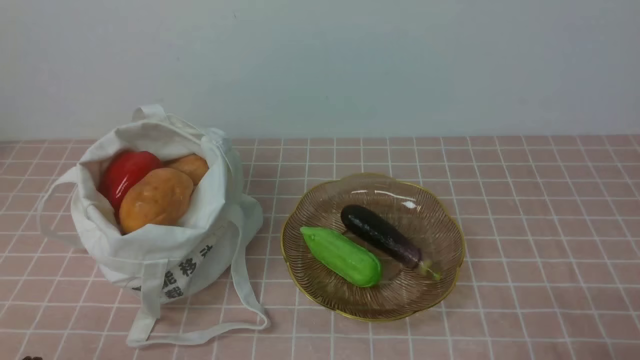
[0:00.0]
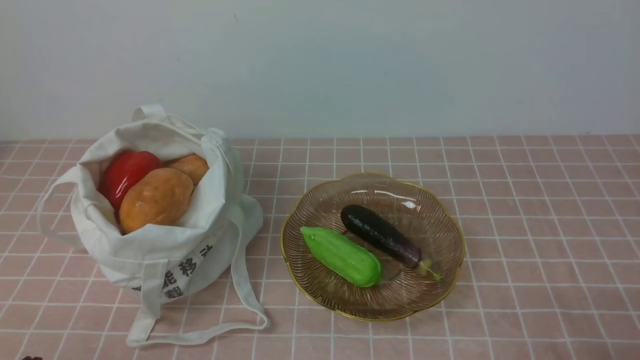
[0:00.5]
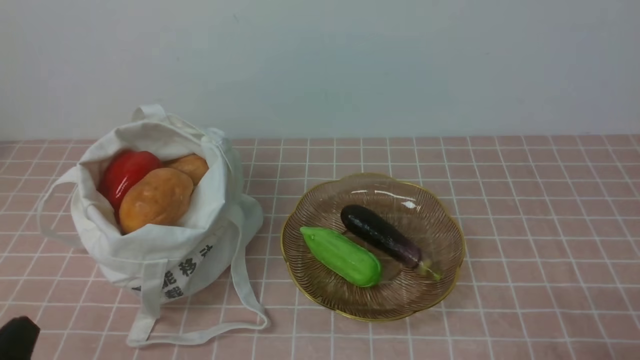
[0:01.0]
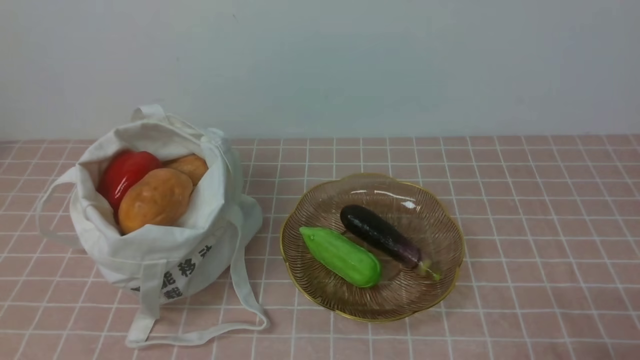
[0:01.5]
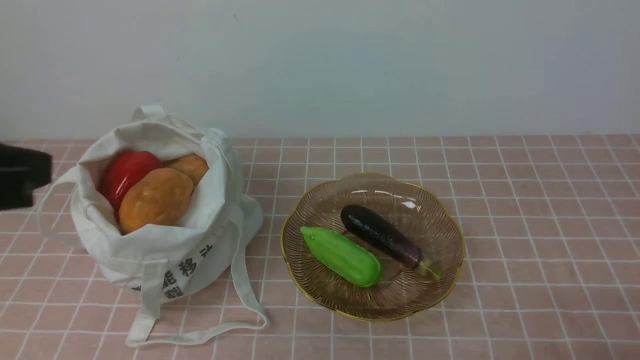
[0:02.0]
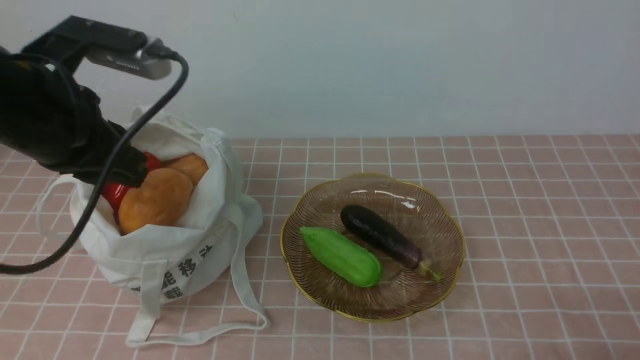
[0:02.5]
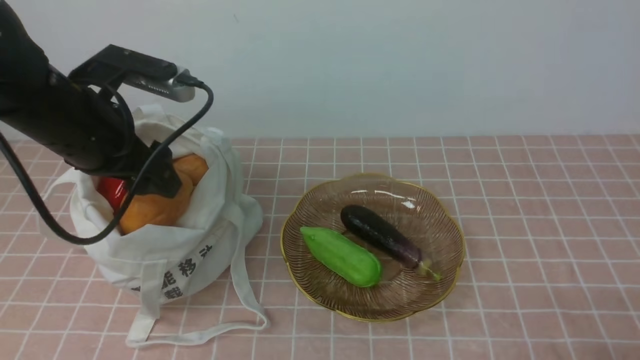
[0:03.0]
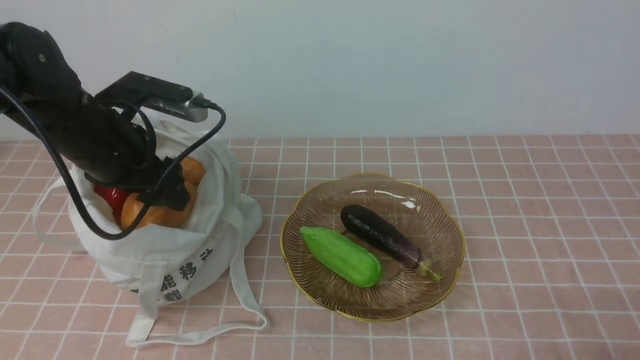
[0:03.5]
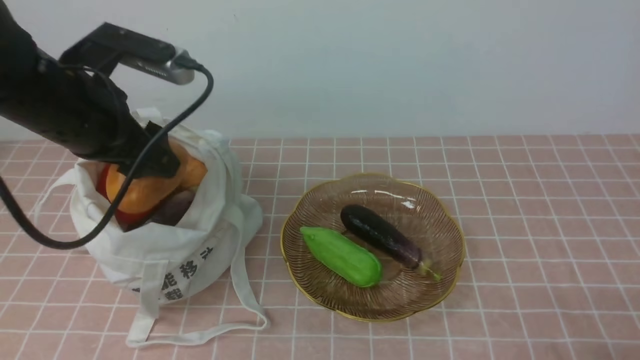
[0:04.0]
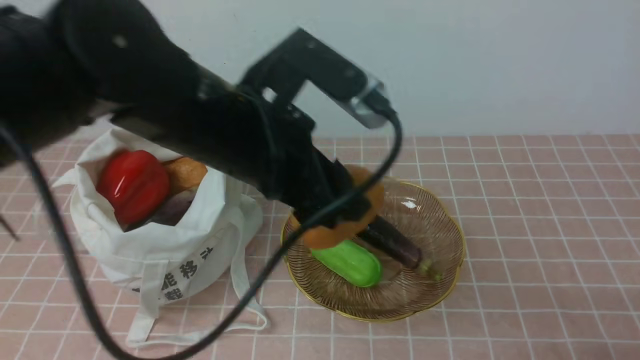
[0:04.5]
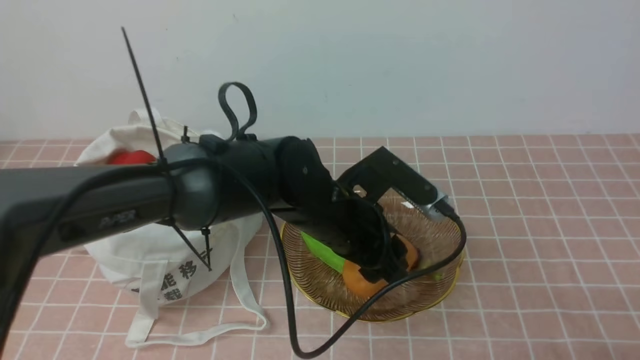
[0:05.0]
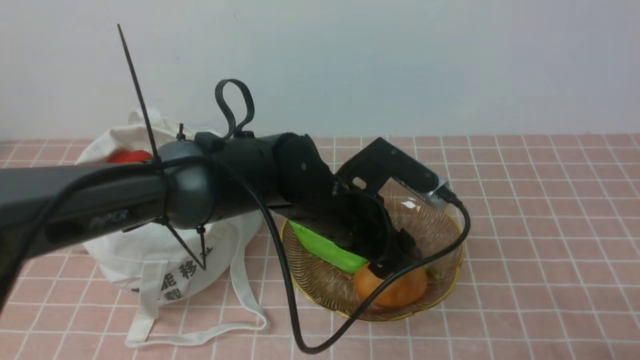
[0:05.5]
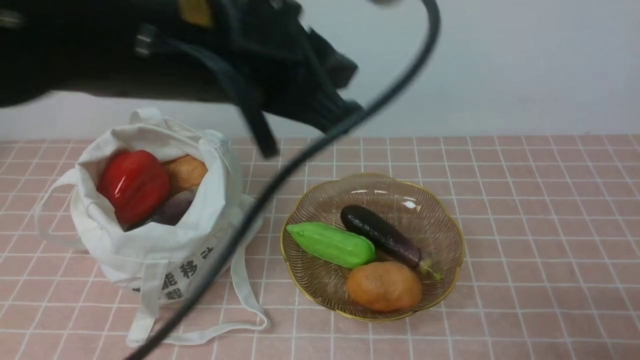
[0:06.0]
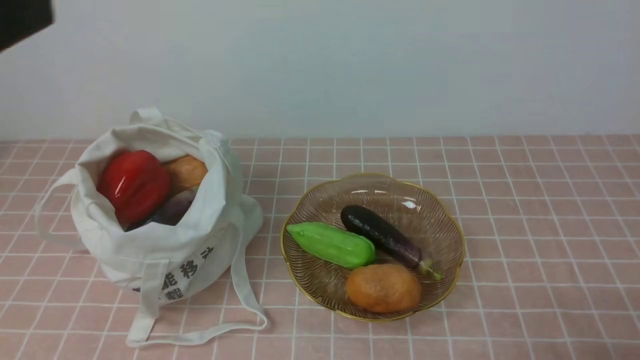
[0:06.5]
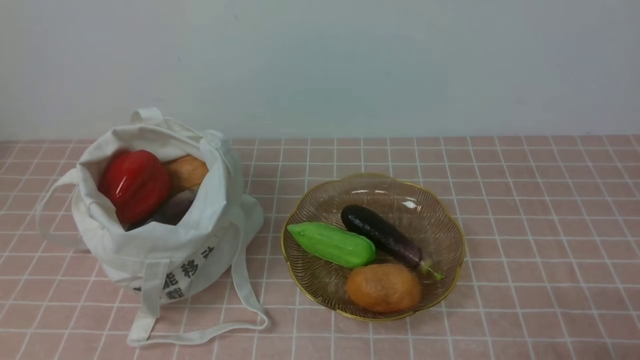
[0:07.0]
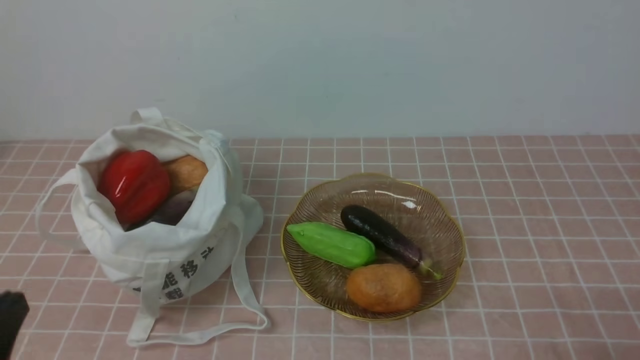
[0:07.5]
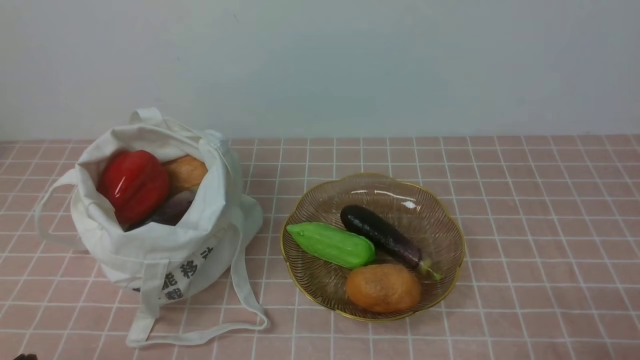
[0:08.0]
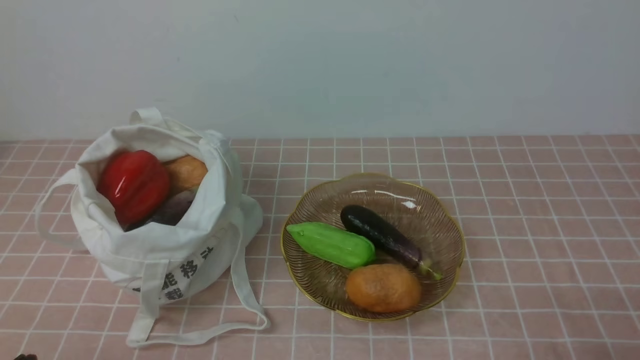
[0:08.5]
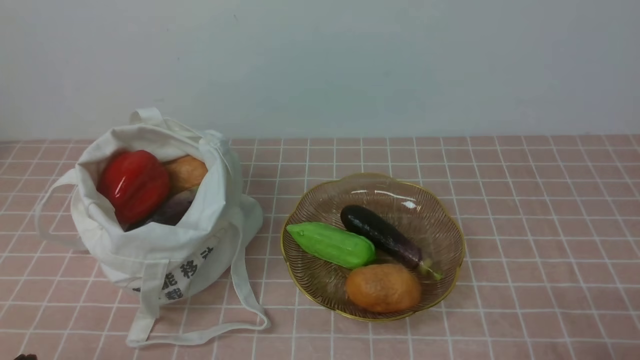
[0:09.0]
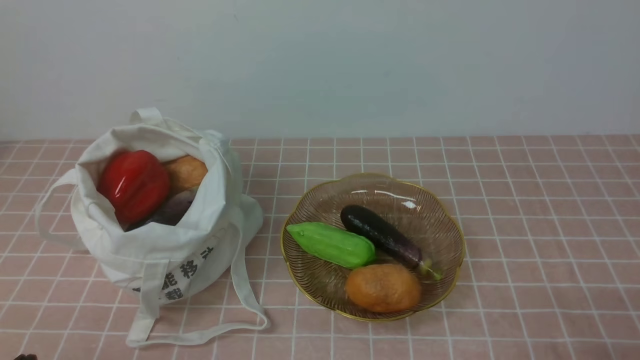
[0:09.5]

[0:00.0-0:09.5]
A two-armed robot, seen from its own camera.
Task of the whole recording: take vegetables from bag on pink coffee tablecloth place on plate.
Step, 0:00.0 to 0:03.5: Grasp the potato with left gripper.
Step, 0:04.0 to 0:05.5: Place the potato on the plate with left gripper.
0:02.0 to 0:04.0: The left gripper shifts some 20 cm forward and downward, and opens its fingers.
0:04.0 to 0:05.5: The left gripper goes some 25 cm to the right and downward.
0:05.5 to 0:07.5: The left gripper moves to the left and backward, about 35 cm, travels upward and back again, roughly 25 cm each way, and closes up.
0:07.5 to 0:09.5: The left gripper shifts roughly 10 cm downward.

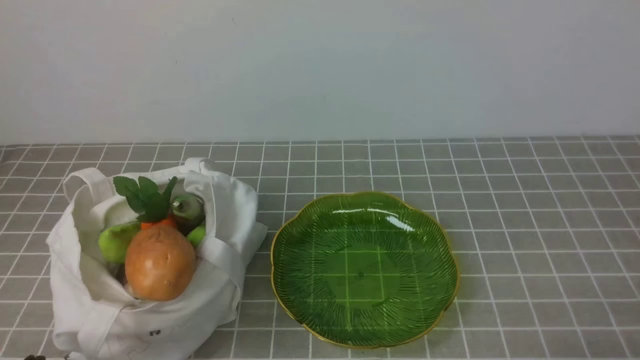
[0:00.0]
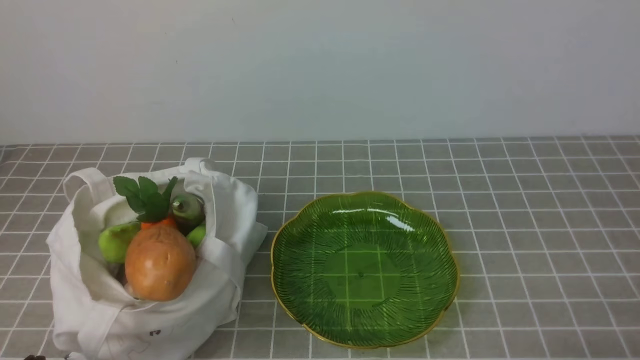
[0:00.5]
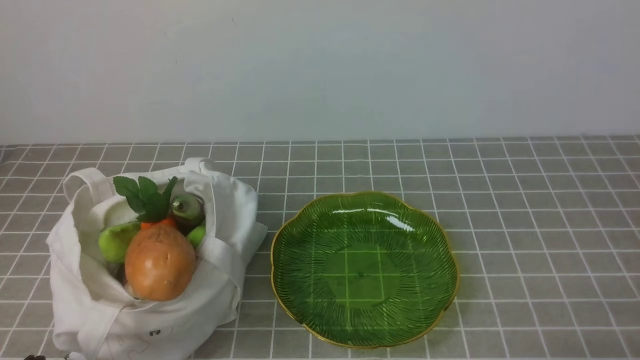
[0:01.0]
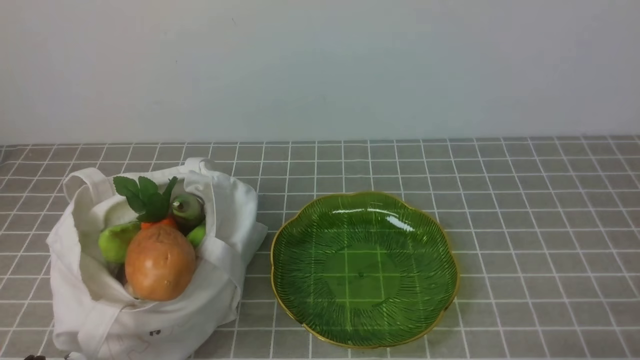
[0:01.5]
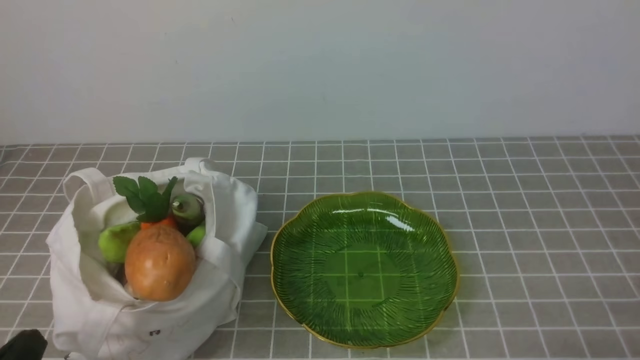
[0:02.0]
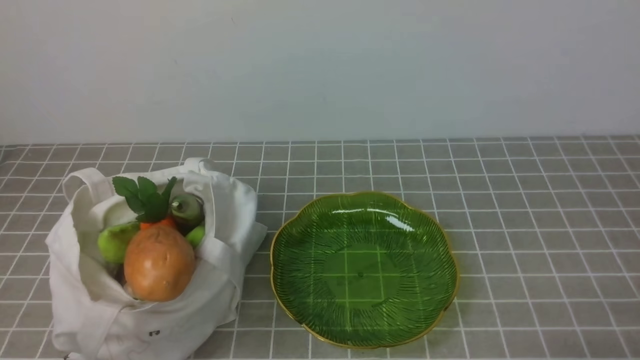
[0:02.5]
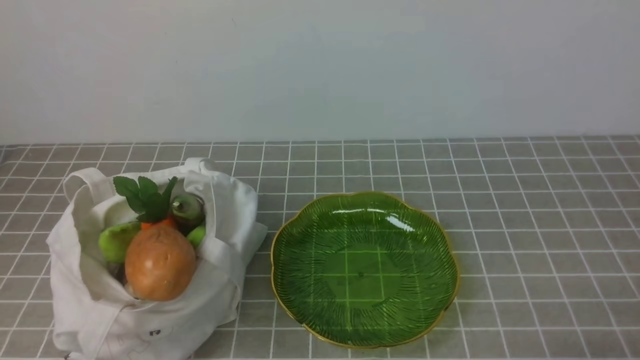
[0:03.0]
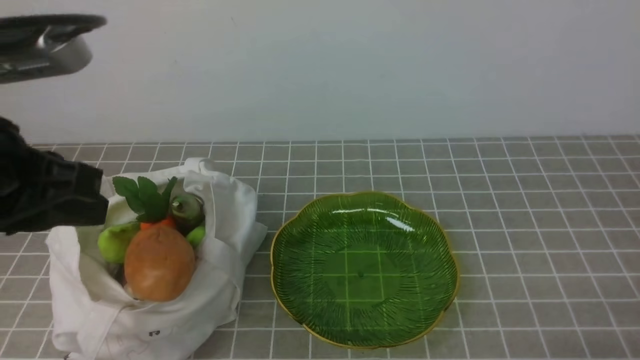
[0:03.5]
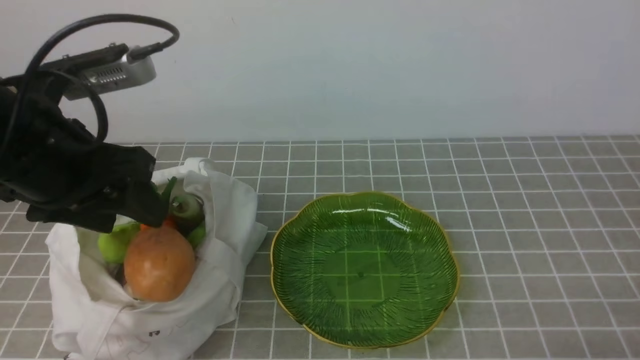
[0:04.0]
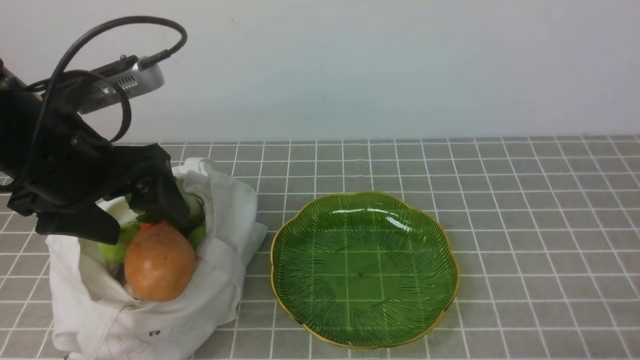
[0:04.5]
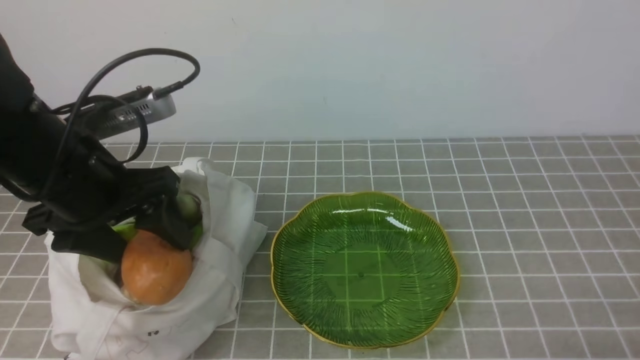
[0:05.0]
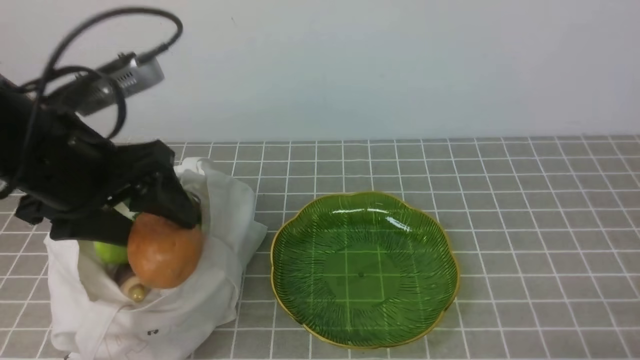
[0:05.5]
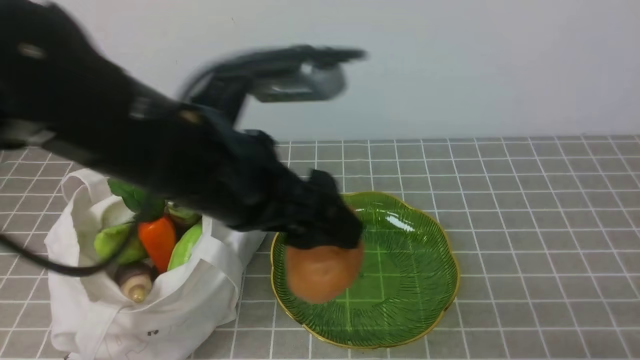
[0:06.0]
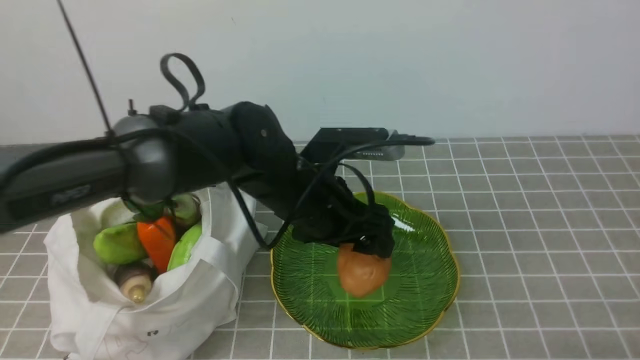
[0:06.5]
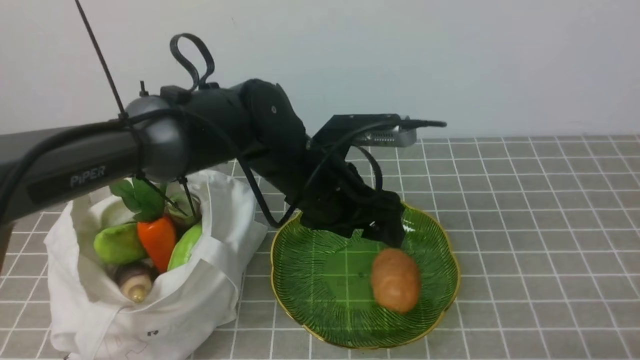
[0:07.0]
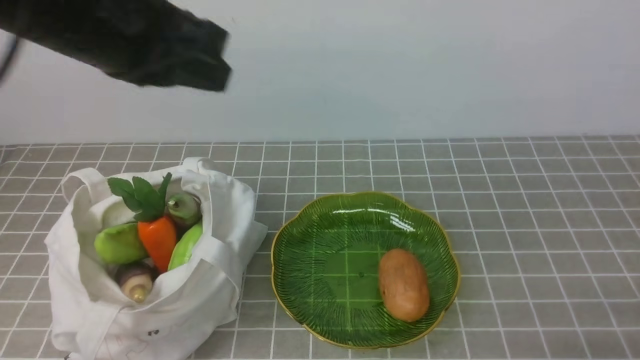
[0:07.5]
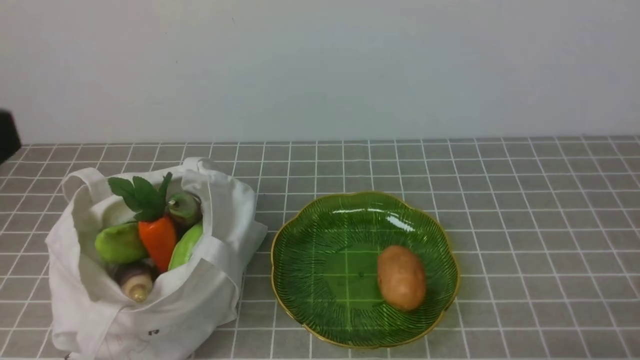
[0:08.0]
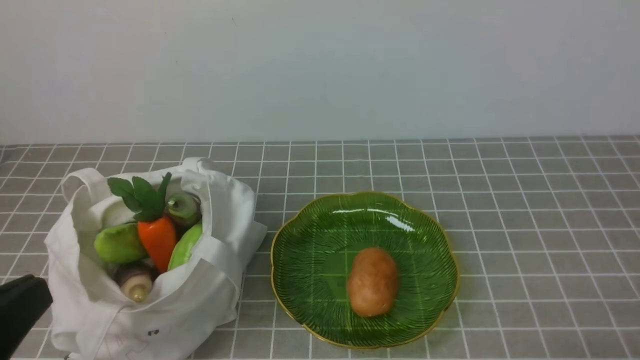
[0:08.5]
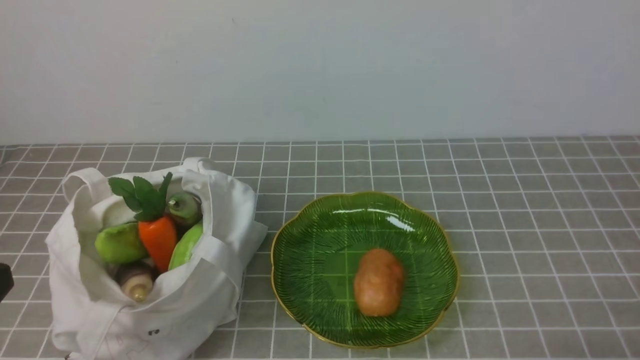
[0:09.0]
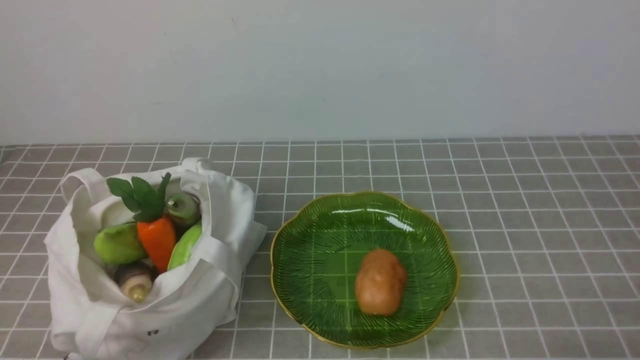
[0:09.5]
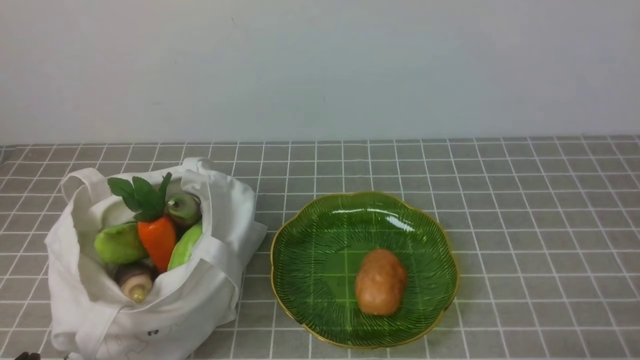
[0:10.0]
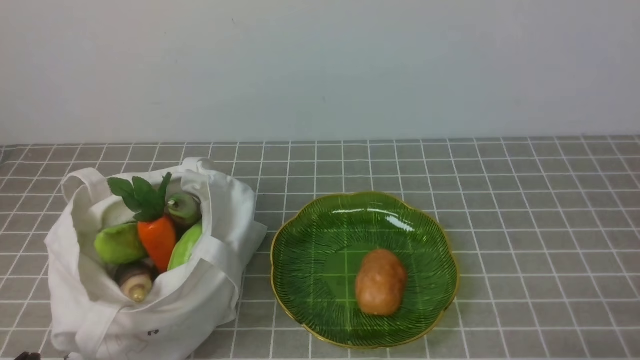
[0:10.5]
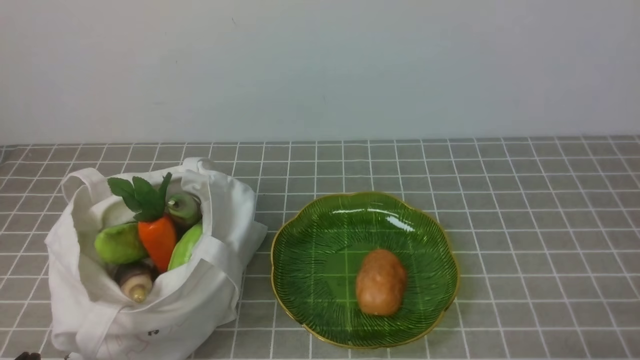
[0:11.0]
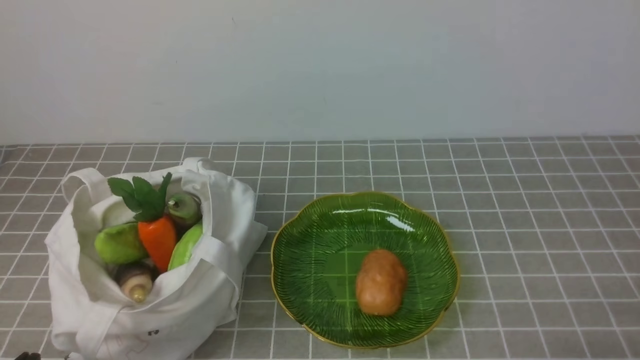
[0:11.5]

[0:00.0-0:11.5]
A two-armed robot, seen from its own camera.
Task of the whole recording: take vegetables from bag on grey coffee tablecloth place on plate.
Step, 0:00.0 to 0:05.0: Grasp the potato with left gripper.
Step, 0:05.5 to 0:07.0: Place the potato on the plate with left gripper.
0:02.0 to 0:04.0: The left gripper moves forward and upward, roughly 25 cm, and opens.
0:04.0 to 0:06.0: The left gripper goes about 15 cm to the right.
0:06.0 to 0:07.5: The left gripper is displaced upward and to the left by some 15 cm, and closes.
0:07.5 to 0:09.5: The left gripper travels downward, backward and to the left by approximately 35 cm.
